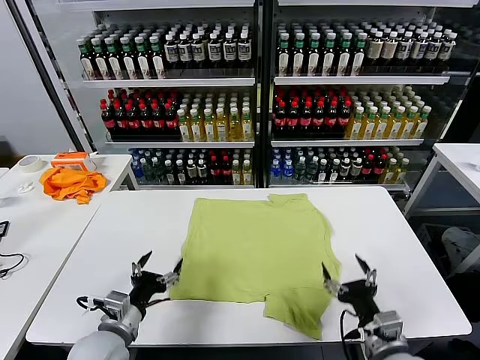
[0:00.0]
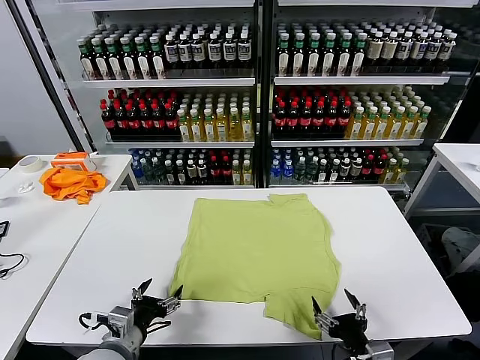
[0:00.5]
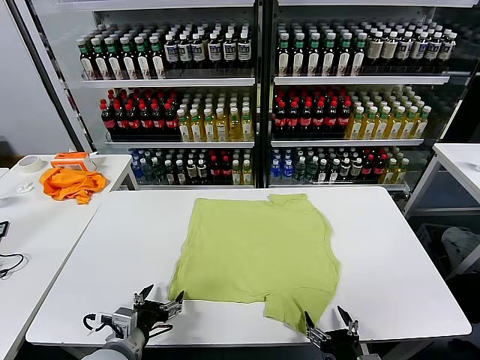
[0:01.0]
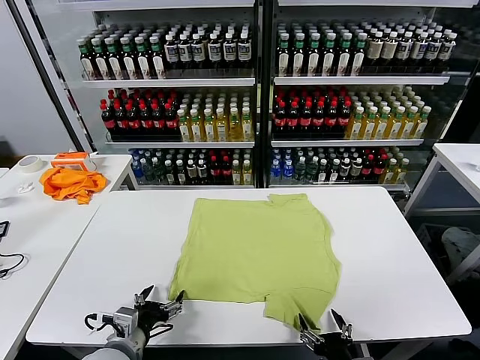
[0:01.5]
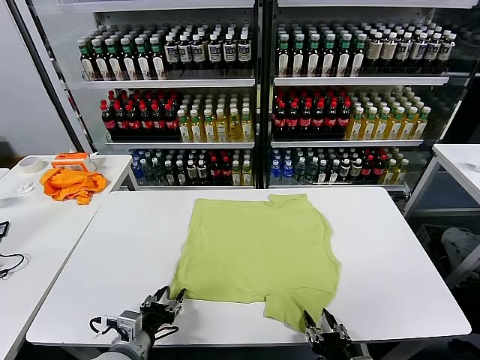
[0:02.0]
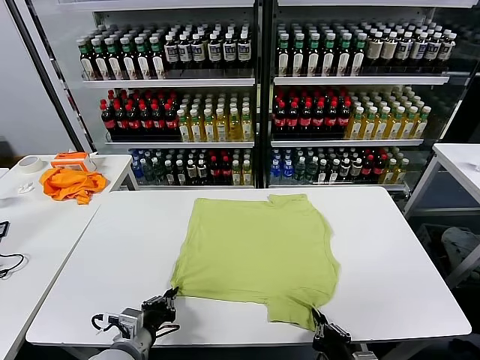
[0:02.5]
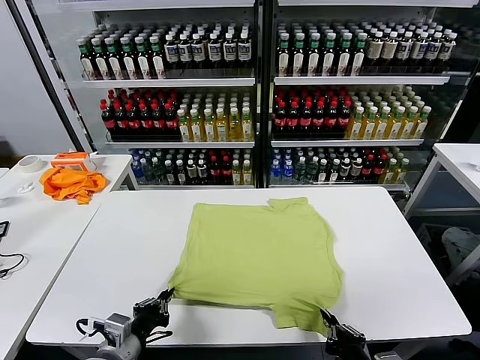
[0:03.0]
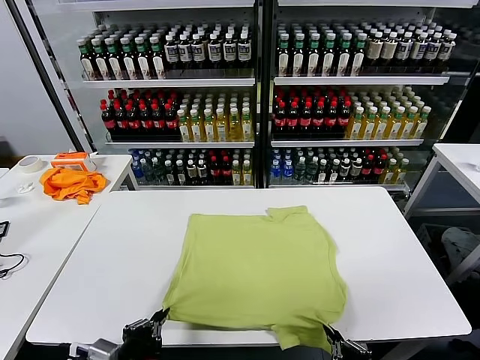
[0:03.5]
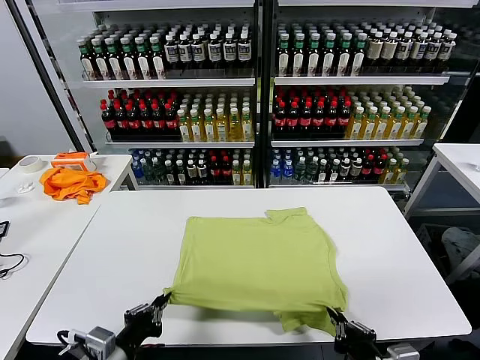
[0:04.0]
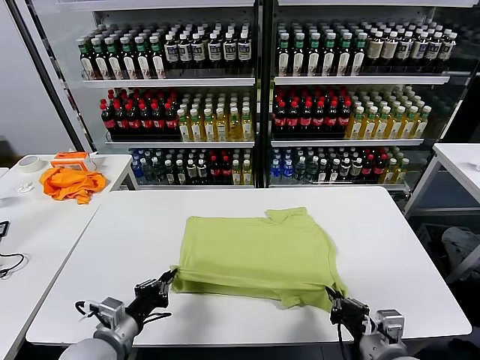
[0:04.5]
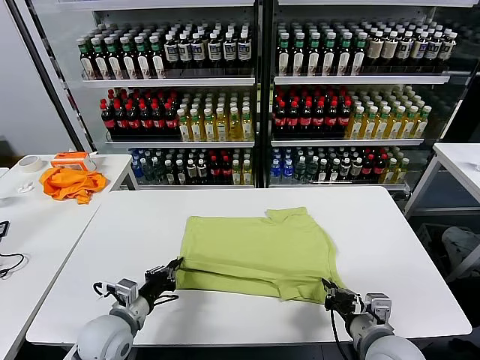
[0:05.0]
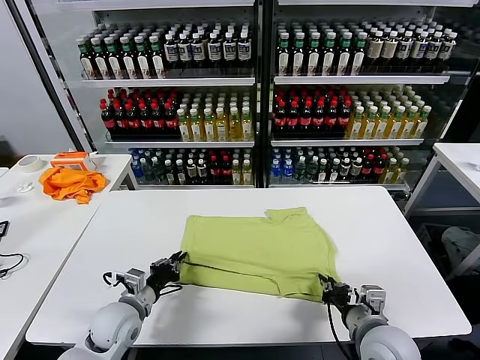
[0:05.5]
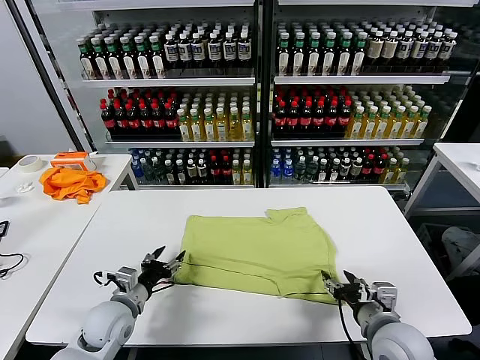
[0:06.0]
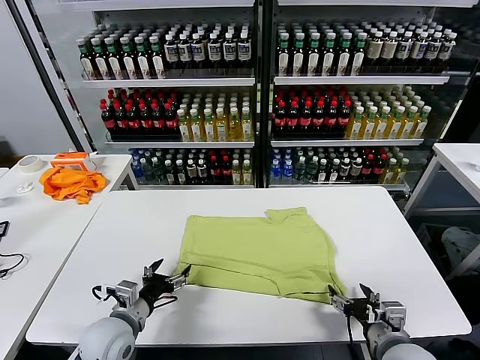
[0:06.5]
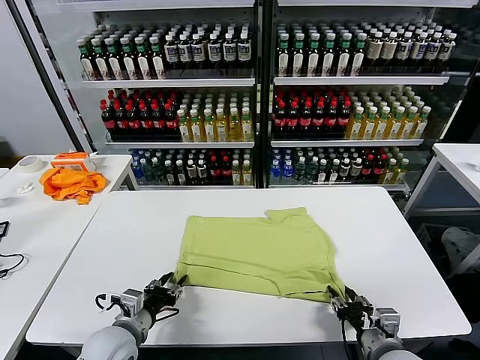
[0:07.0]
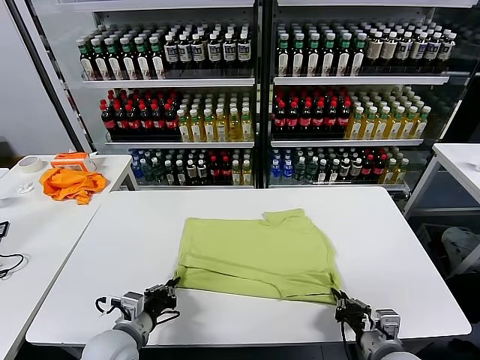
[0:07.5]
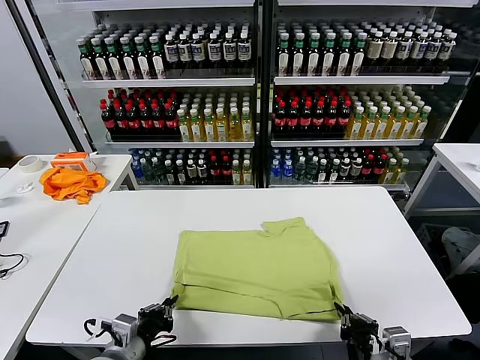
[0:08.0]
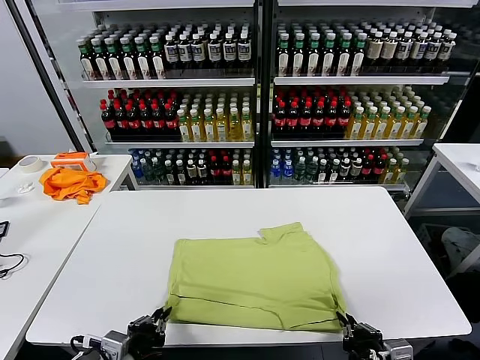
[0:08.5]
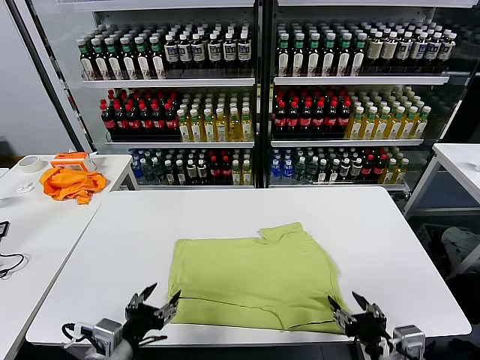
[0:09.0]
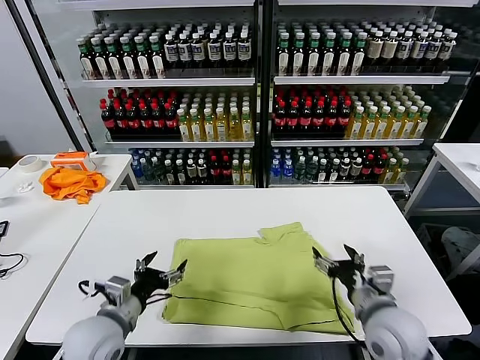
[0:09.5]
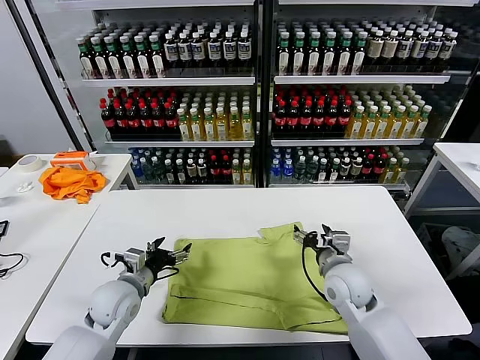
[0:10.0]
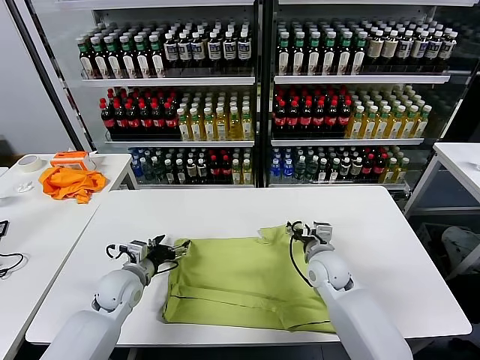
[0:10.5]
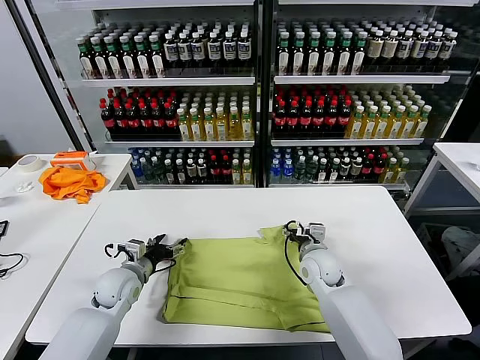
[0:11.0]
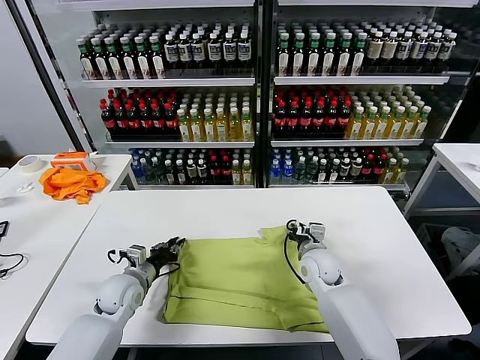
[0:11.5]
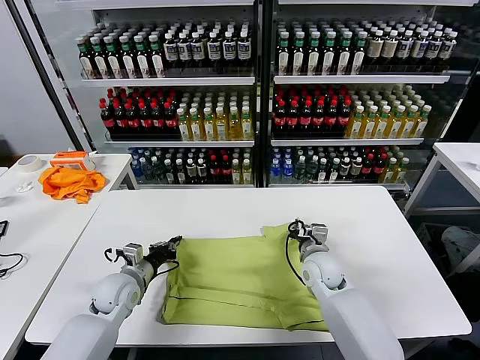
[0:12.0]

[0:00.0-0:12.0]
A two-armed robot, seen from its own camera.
Task of the whole recording: fold and organize the clothes.
Step, 0:00.0 to 0:02.0: use both grippers simultaneously to clamp the lower edge of the clothing fabric.
Step, 0:03.0 to 0:05.5: use both grippers to drag the lower edge of the fabric forward and fold it over the upper edge.
Step, 0:06.0 to 0:08.5: Drag the clothes downward with both gripper.
Step, 0:09.0 to 0:11.5: use both grippers simultaneously to clamp the upper edge of the clothing fabric.
0:02.0 to 0:04.0: The left gripper is displaced upward by about 5 cm, and closes up. Meanwhile the right gripper is displaced upward by about 10 cm, and closes up.
0:04.0 to 0:06.0: The right gripper travels forward by about 10 cm, and opens its fingers. Meanwhile the left gripper is displaced forward and downward by about 15 cm, and opens up.
0:06.0 to 0:08.0: The grippers both shift backward by some 10 cm. The right gripper closes up. The left gripper closes its fingers.
0:08.0 to 0:10.0: Both grippers travel together forward, about 20 cm. The right gripper opens up. The left gripper opens up.
0:10.0 to 0:12.0: The right gripper shifts by about 5 cm, and closes up. The left gripper shifts by approximately 5 cm, and closes its fingers.

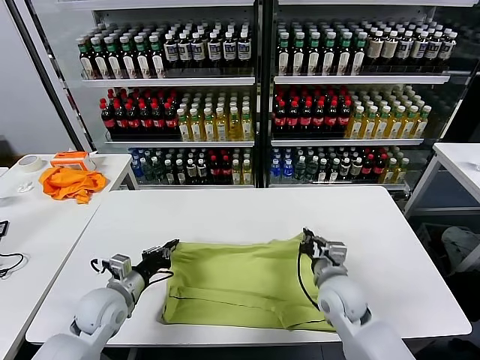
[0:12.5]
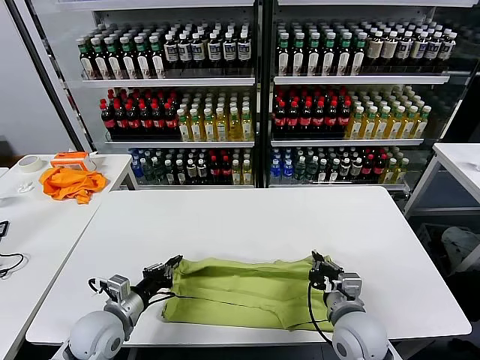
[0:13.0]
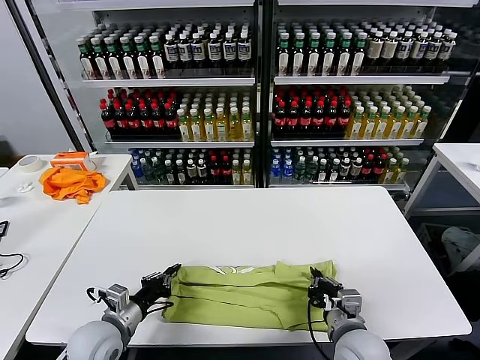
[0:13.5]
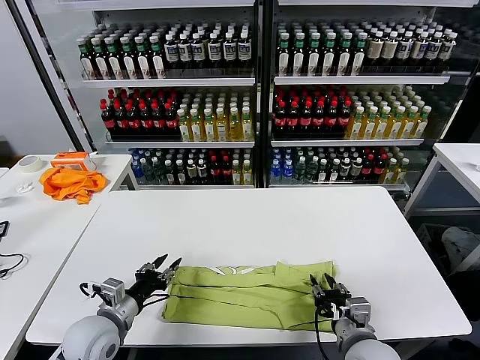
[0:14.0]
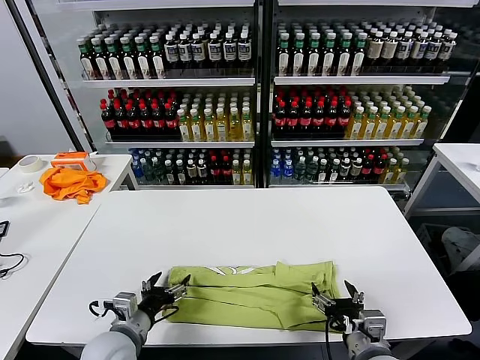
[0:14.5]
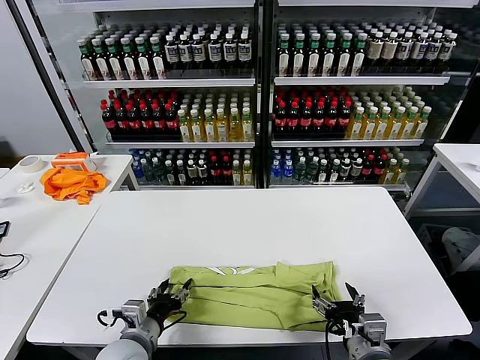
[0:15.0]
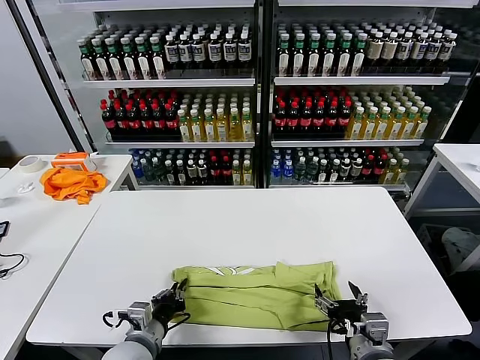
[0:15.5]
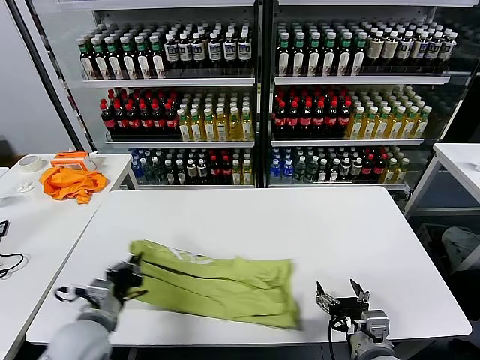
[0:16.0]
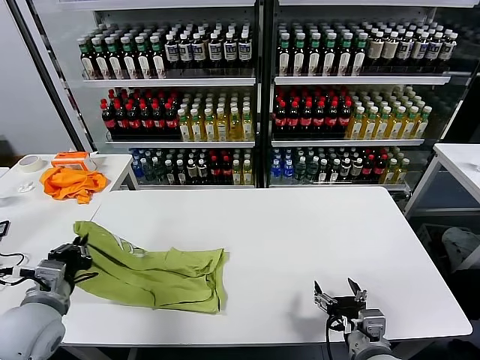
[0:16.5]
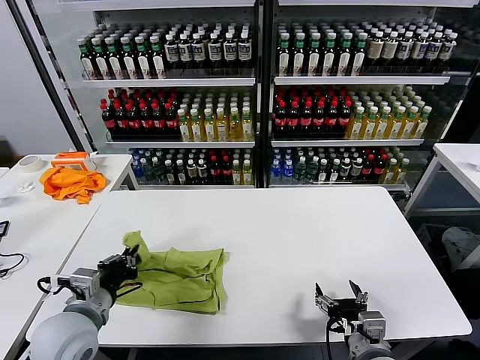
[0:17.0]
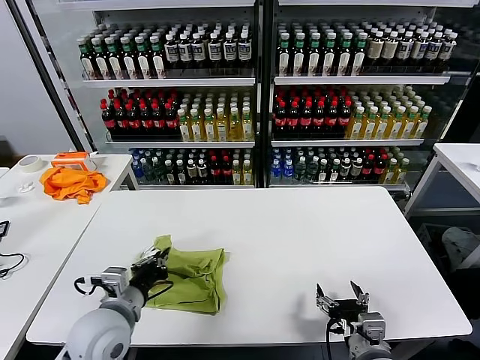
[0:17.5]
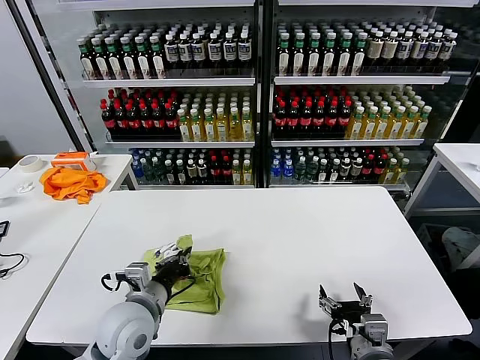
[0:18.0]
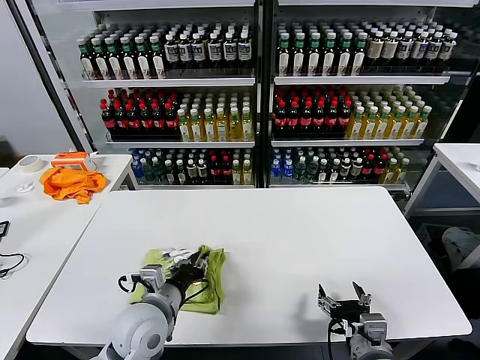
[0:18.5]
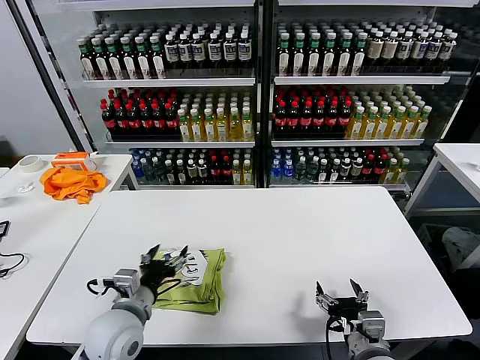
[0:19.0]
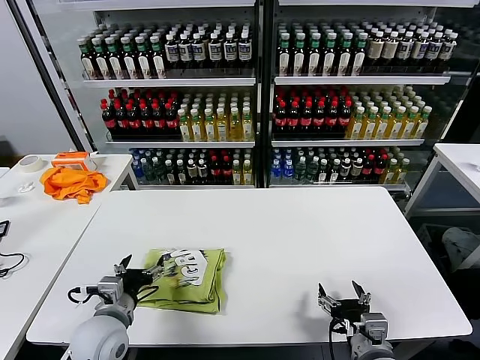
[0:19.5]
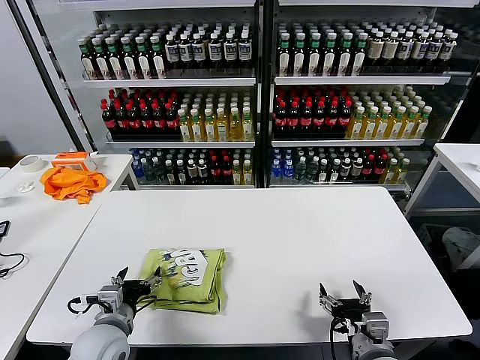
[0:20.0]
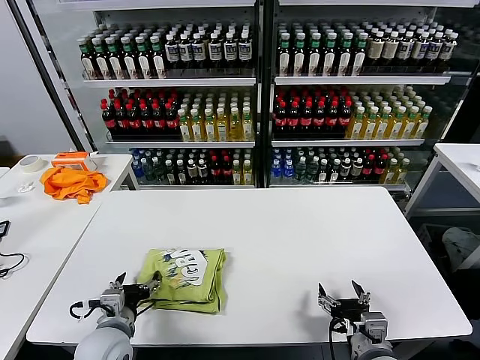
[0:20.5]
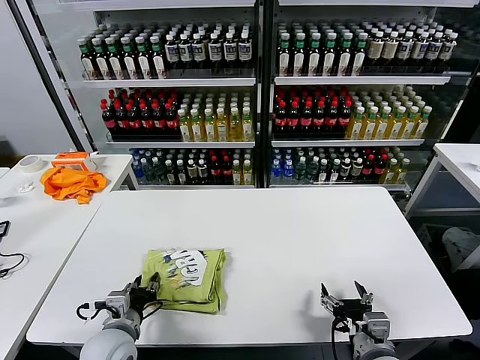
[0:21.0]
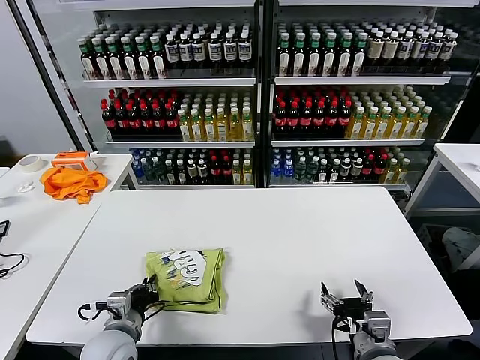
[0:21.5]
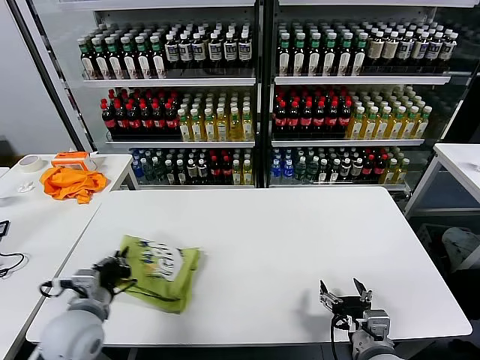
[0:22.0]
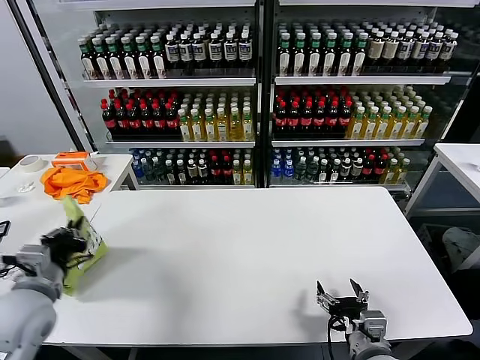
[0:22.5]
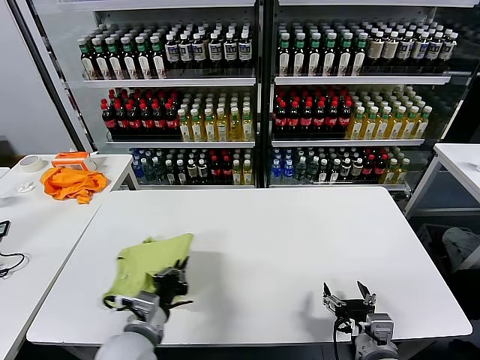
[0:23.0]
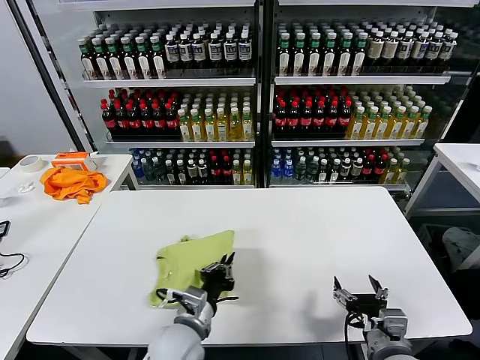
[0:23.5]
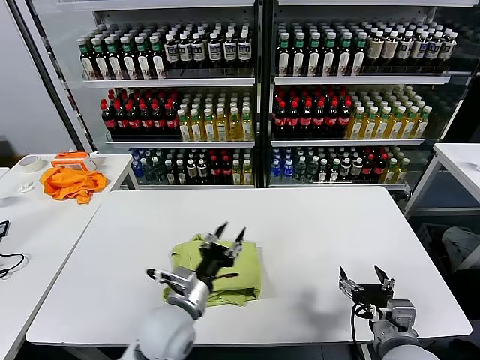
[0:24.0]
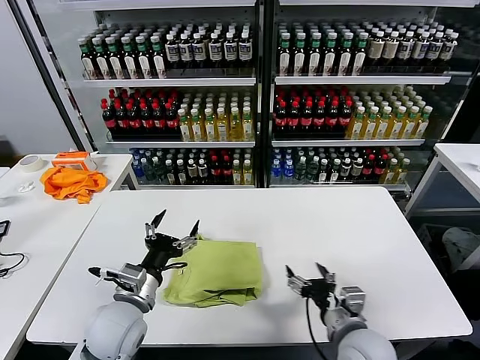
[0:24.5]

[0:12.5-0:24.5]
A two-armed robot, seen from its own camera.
Task of the whole recording: fold and organize the clothes.
Step, 0:12.5 to 0:14.0: use both grippers to drag the upper edge of the fabric backward and fold it over the lower edge.
Step, 0:14.5 to 0:15.5: use the left gripper to clamp the left edge of the fabric.
Step, 0:16.0 to 0:18.5: use the left gripper to drag the left edge of the fabric to the left and folds it over the right edge.
Step, 0:19.0 to 0:23.5: Flip the folded clothes over with left gripper.
0:12.5 to 0:14.5: The right gripper moves backward, roughly 15 cm, and opens. Meanwhile the left gripper moves backward, roughly 10 cm, and opens.
0:14.5 to 0:16.5: The left gripper moves to the left and upward, roughly 15 cm, and closes.
0:16.5 to 0:18.5: The left gripper goes some 15 cm to the right.
0:18.5 to 0:20.5: The left gripper travels to the left and downward by some 10 cm, and opens up.
0:20.5 to 0:22.5: The left gripper shifts some 15 cm upward and to the left, and closes.
0:22.5 to 0:24.5: The left gripper travels to the right and downward by about 15 cm, and opens up. Meanwhile the right gripper moves about 5 cm.

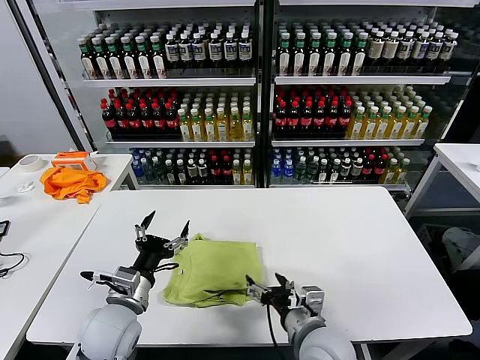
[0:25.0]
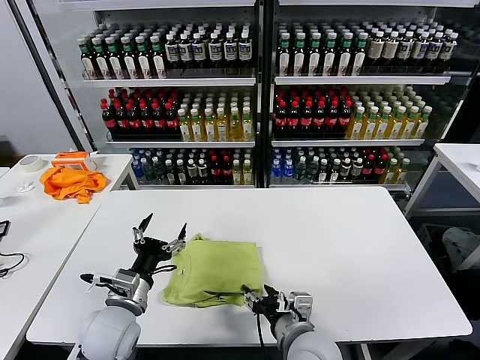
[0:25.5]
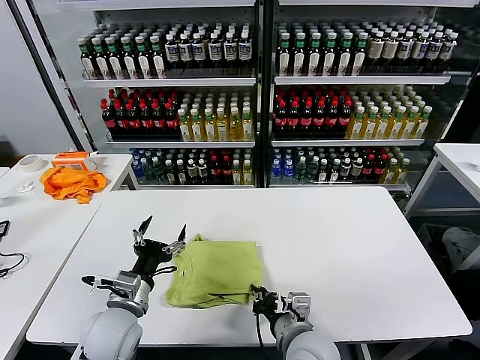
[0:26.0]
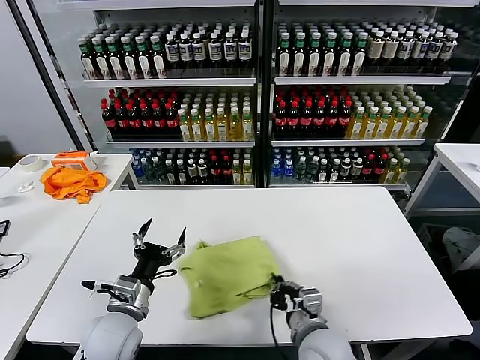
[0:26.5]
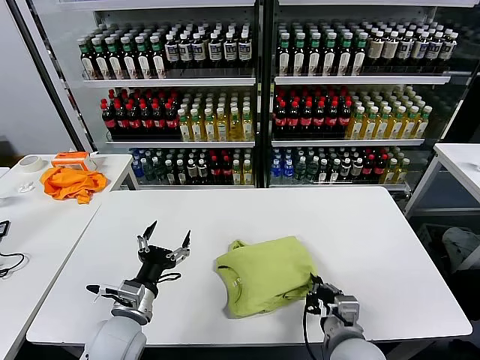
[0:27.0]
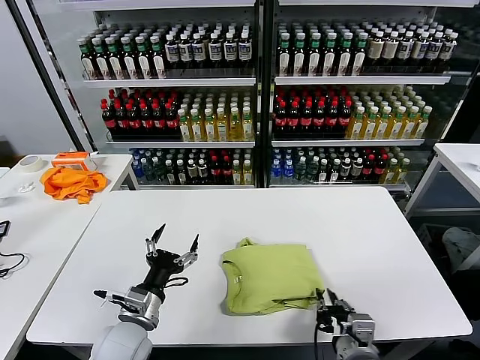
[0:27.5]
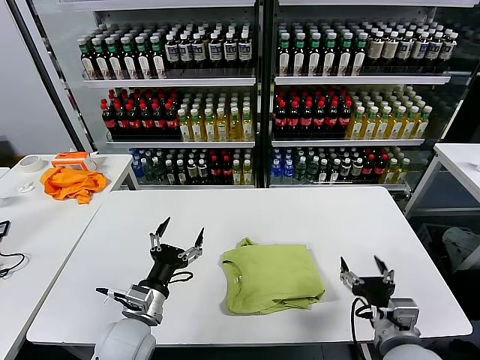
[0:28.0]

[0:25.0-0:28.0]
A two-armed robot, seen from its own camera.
Task of the whole recording: fold and organize the clothes.
Step, 0:25.0 to 0:27.5: Drag the clothes to the center of the table.
0:25.0 to 0:26.5: The right gripper closes its fingers.
0:26.5 to 0:28.0: The right gripper is displaced to the right by approximately 15 cm, and opens up.
